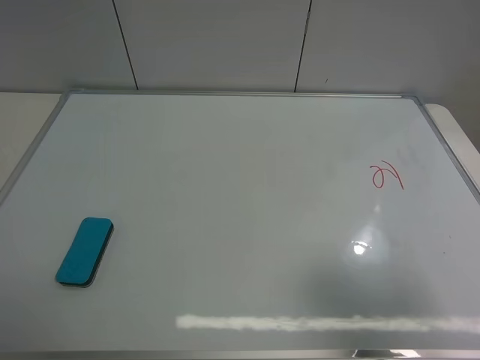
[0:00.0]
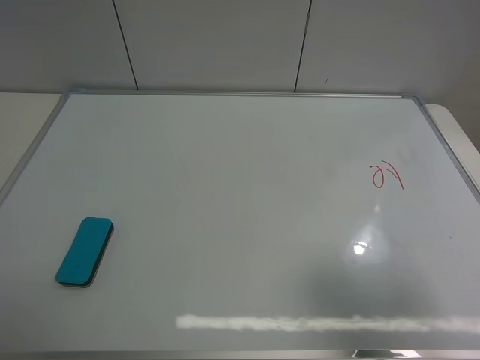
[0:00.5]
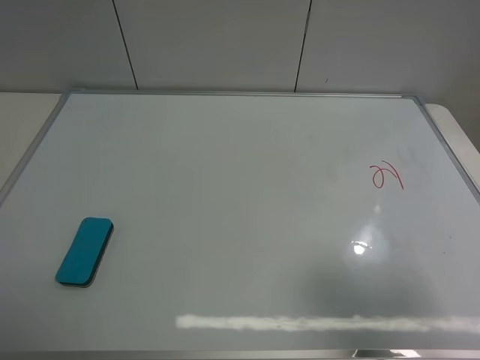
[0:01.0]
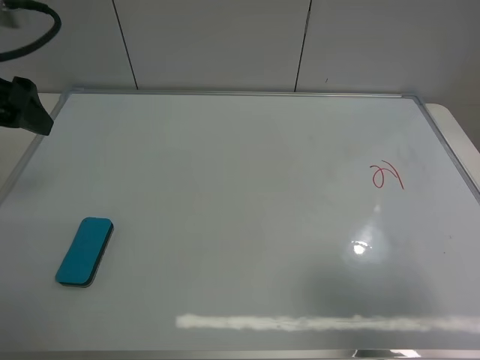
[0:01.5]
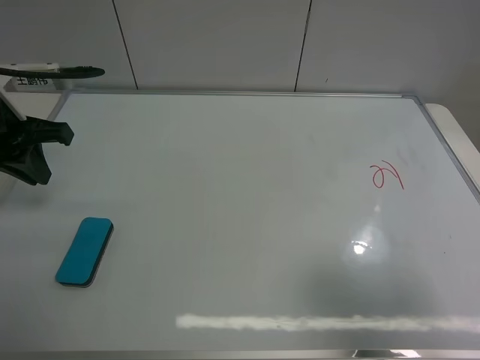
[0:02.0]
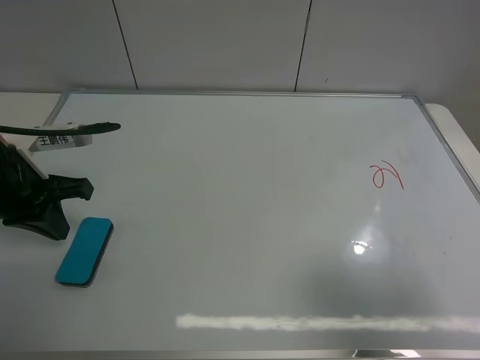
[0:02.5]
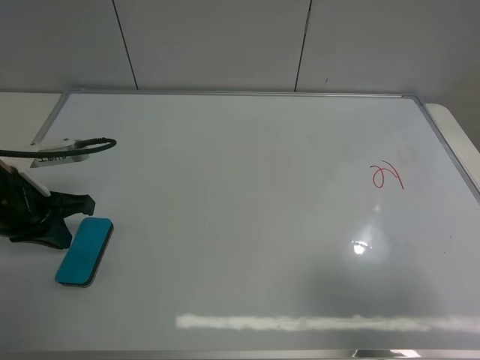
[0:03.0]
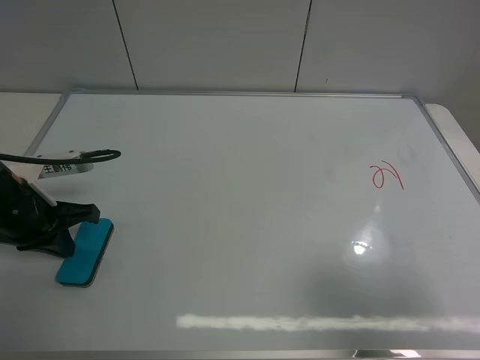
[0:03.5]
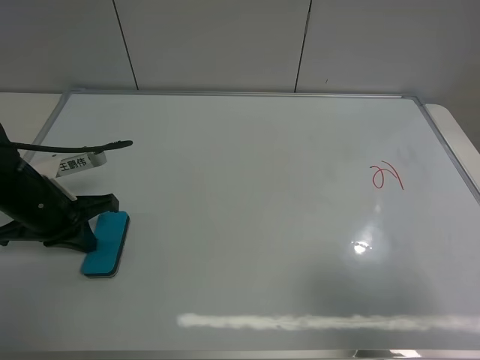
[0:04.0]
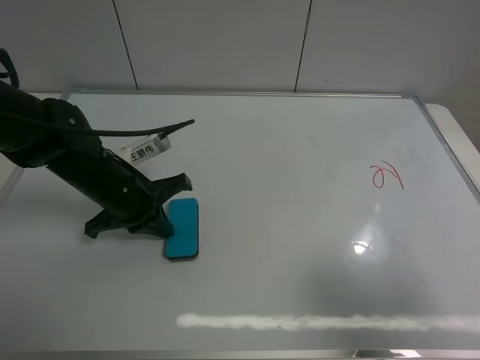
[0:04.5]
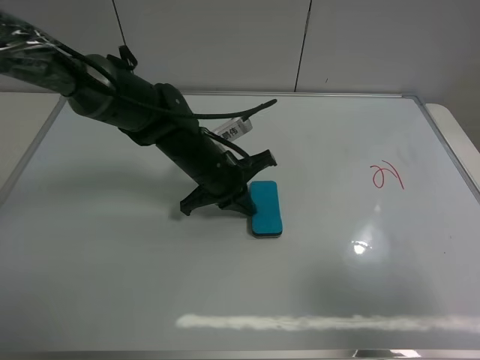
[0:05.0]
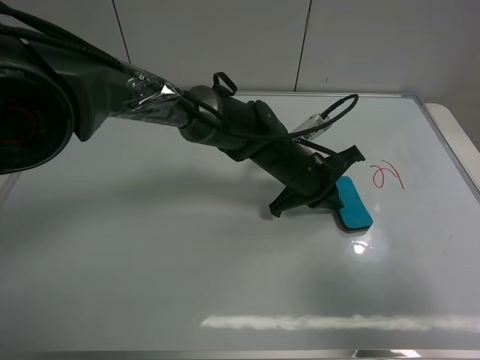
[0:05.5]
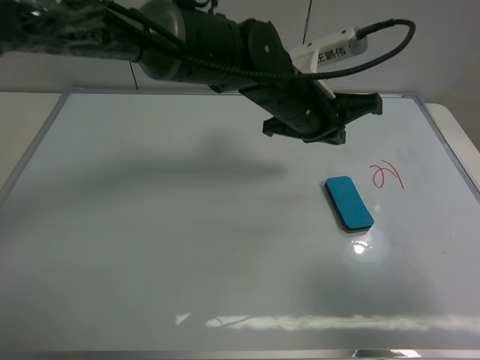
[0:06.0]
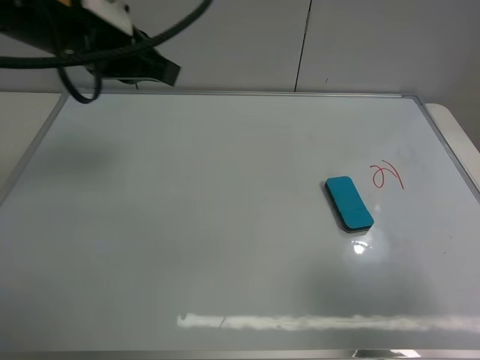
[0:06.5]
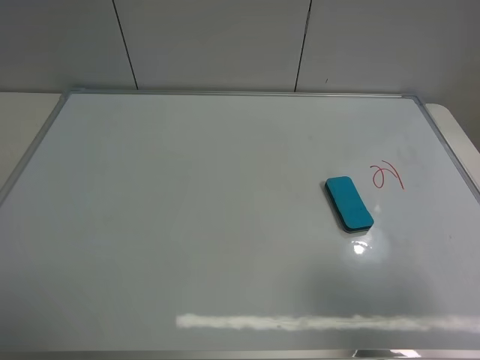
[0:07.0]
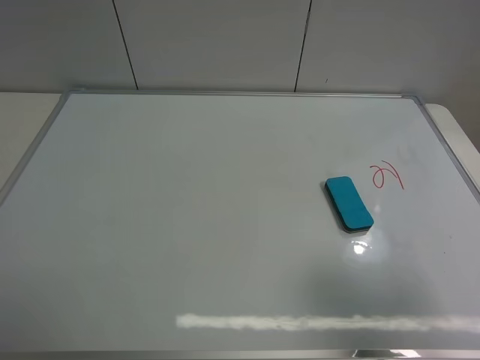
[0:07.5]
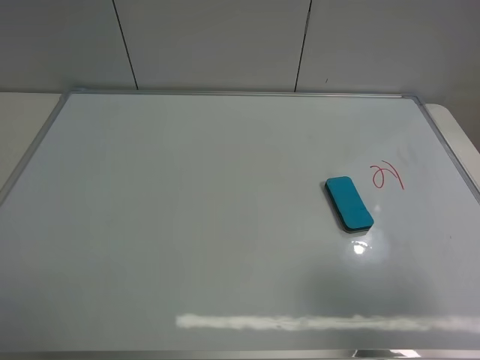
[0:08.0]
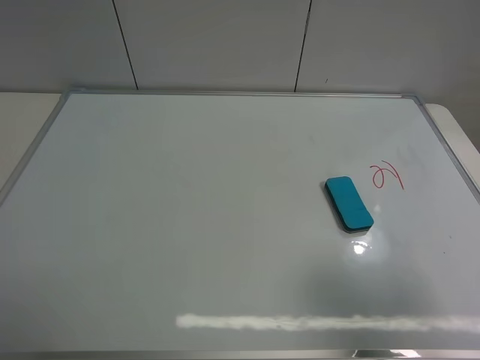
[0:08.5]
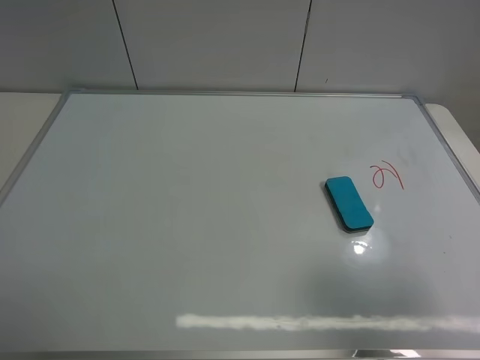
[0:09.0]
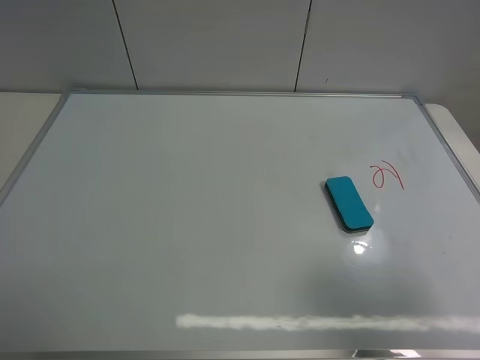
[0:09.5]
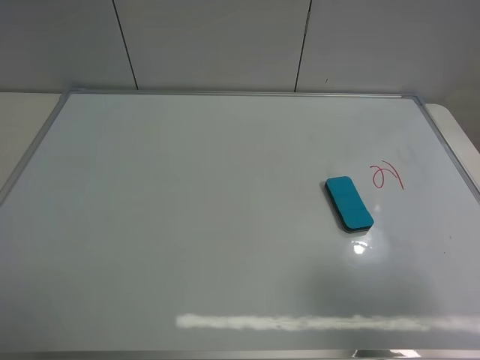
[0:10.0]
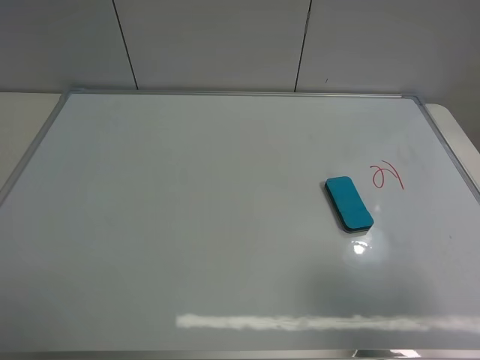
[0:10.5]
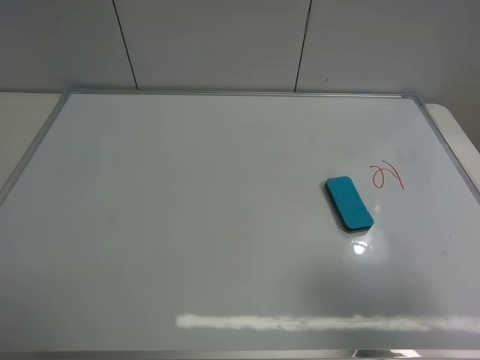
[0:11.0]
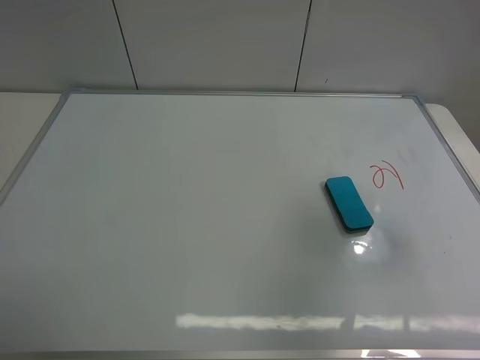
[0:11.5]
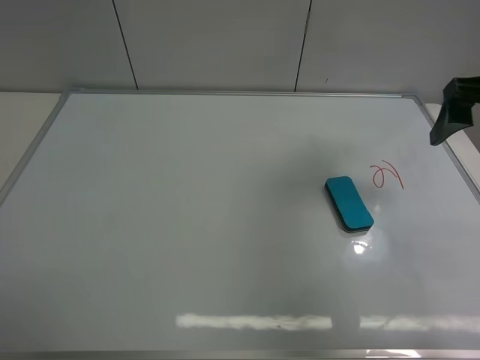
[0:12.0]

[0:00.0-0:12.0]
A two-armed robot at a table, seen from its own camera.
Task of the whole recording: use the left gripper to place the eraser in the right, use the right gripper to pick up the eraser, wipe the notes on the whiteboard clean, and then put it down.
Step, 0:00.0 to 0:05.5: Move the board eraser to the right of the whiteboard with left gripper.
0:00.0 to 0:02.0: The left gripper moves forward, approximately 25 cm, and closes.
0:02.0 to 0:04.0: The left gripper moves downward, approximately 10 cm.
0:04.0 to 0:06.0: The left gripper moves to the right, approximately 30 cm.
0:06.0 to 0:08.0: The left gripper heads to the left and backward, covering approximately 50 cm, and opens up.
0:10.0 to 0:12.0: The right gripper heads forward, covering some 25 cm.

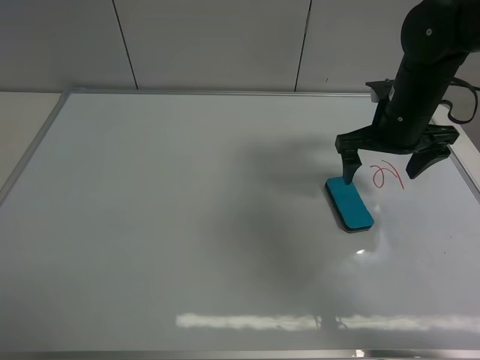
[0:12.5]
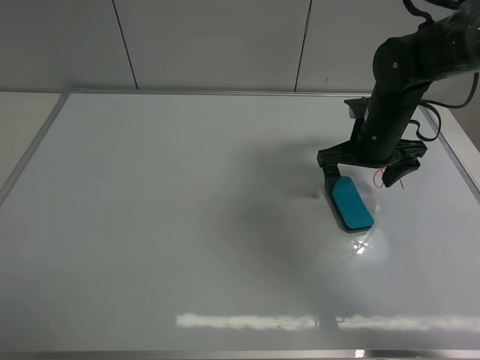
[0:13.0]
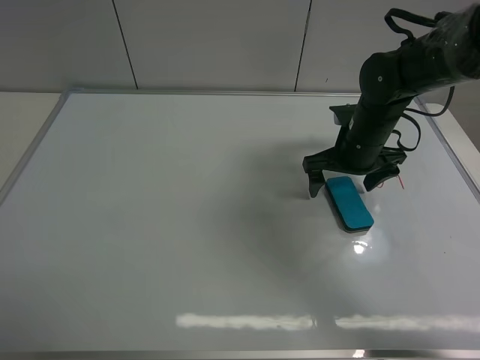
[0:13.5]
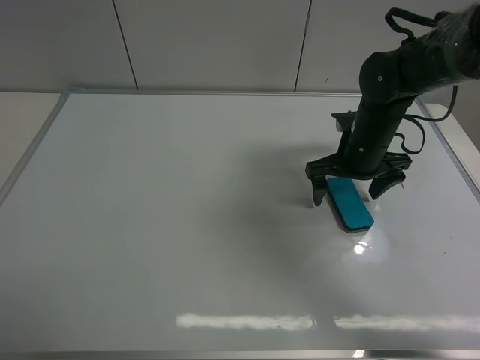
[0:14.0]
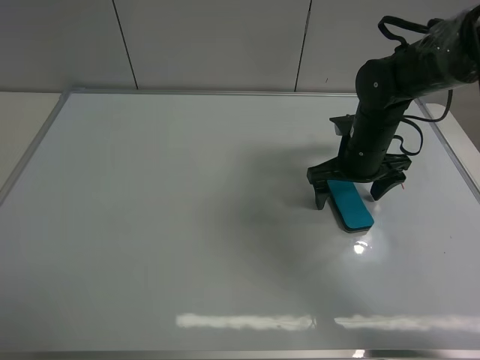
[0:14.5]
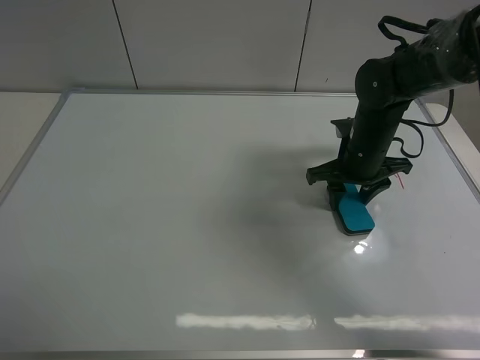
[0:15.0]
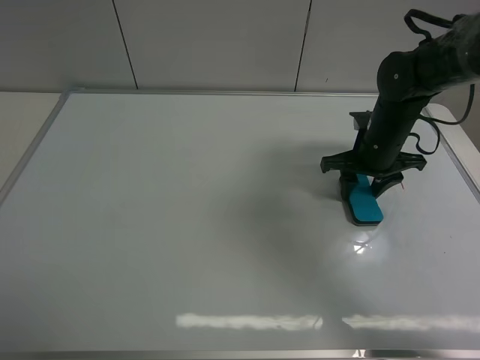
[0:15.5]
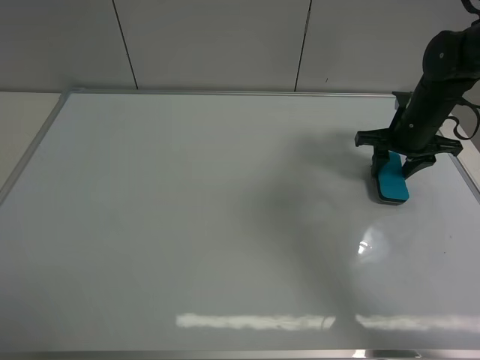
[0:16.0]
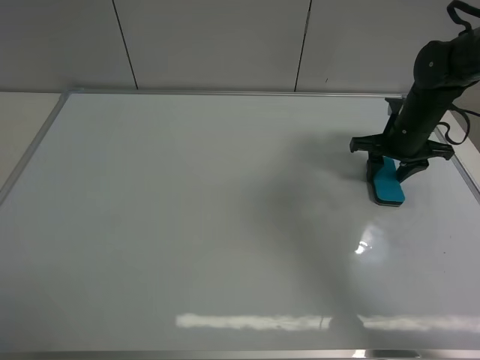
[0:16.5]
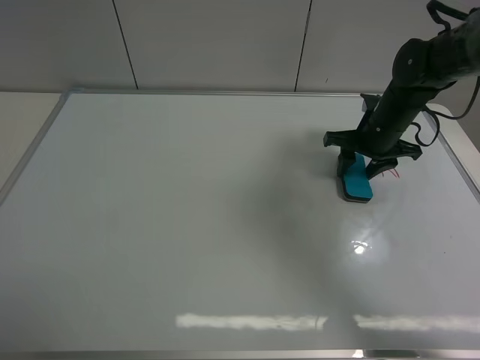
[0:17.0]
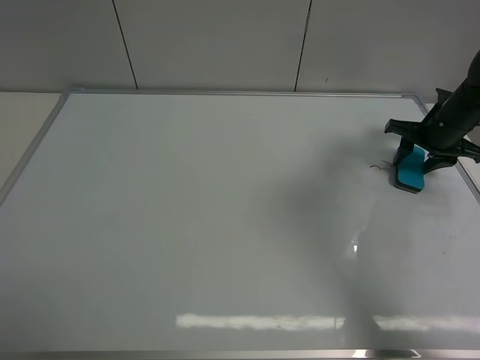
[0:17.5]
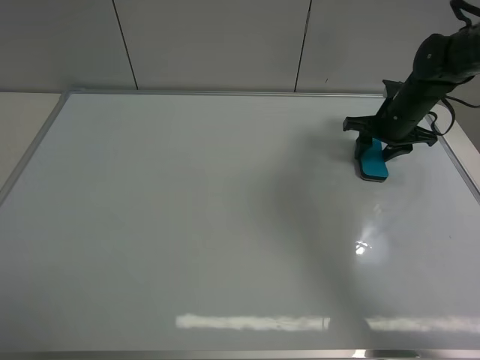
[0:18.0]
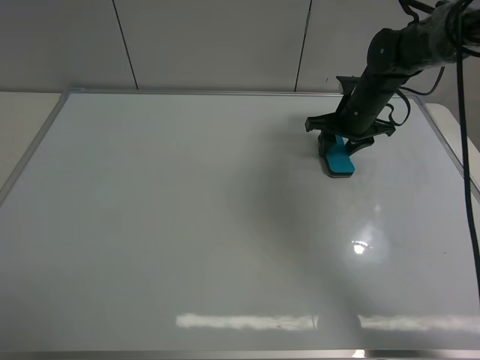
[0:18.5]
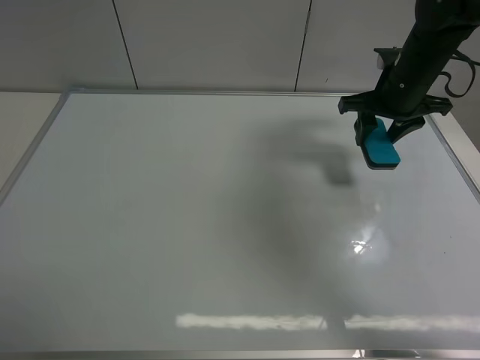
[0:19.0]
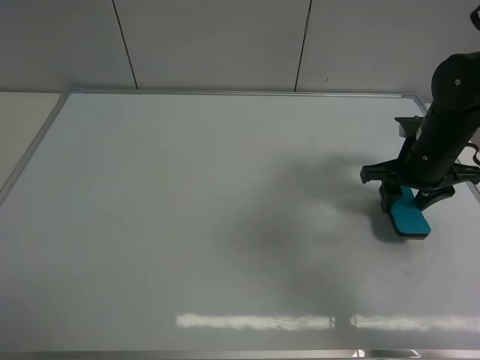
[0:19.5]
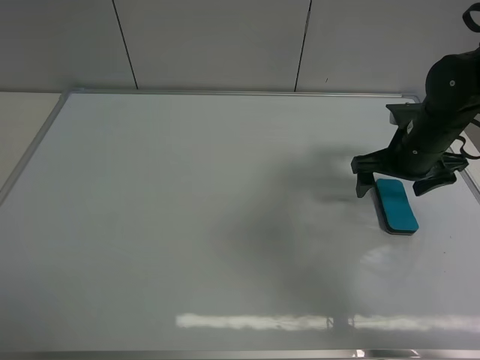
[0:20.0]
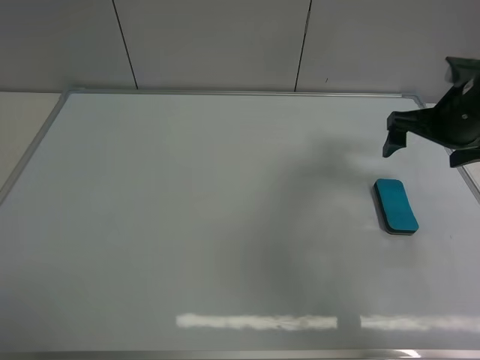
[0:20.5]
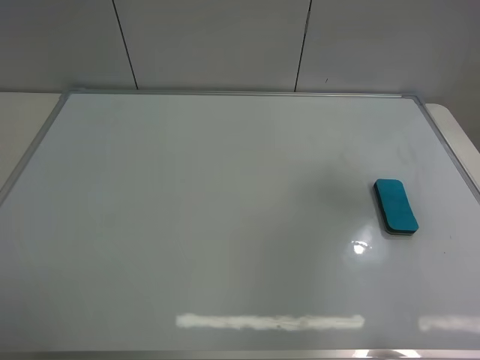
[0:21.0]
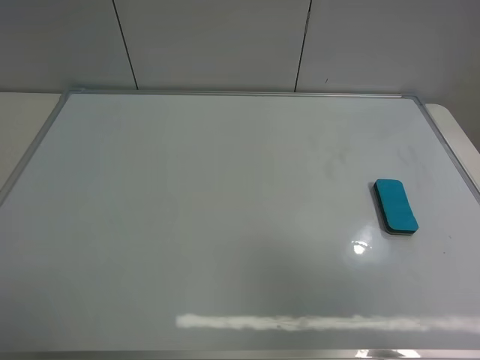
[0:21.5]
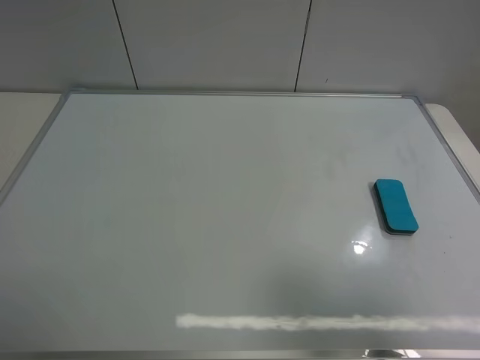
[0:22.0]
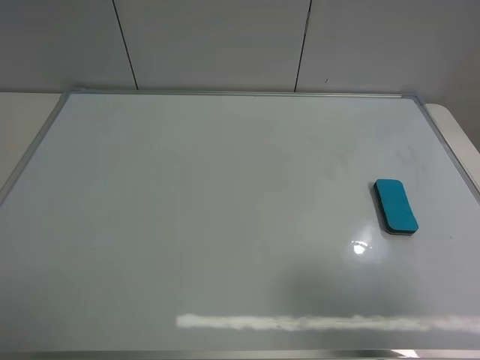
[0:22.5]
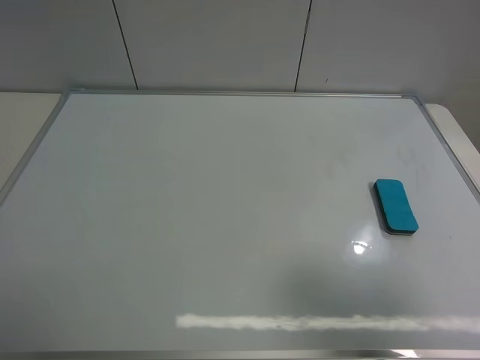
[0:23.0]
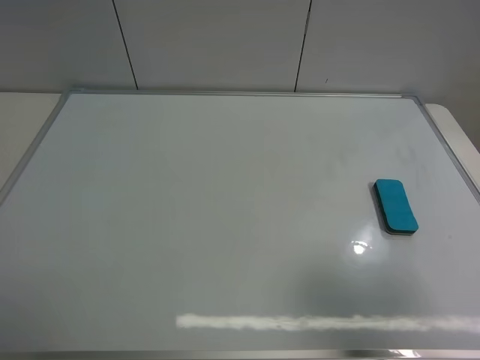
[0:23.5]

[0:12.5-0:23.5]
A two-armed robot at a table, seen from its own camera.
Task of the whole recording: use the left gripper to place the eraser in the right, use the right gripper to pick up the eraser, wipe the notes on the whiteboard clean, and then put it down.
Step, 0:12.5 to 0:15.5: Pick up the board eraser with right gripper.
Step, 0:16.0 to 0:18.5: Wipe off the writing on the board with right gripper.
Step, 0:19.0 to 0:19.5: Move the board eraser to the right of the whiteboard with right gripper.
0:12.5 to 0:14.5: The right gripper travels downward by some 5 cm.
0:14.5 to 0:16.0: The right gripper shifts approximately 10 cm to the right, and closes.
0:16.0 to 0:18.0: The right gripper swings left and right, about 10 cm each way, with 2 reversals.
0:18.0 to 0:20.0: The right gripper is displaced backward by some 10 cm, and opens up.
0:20.0 to 0:21.5: The right gripper goes roughly 40 cm backward and upward.
0:21.5 to 0:23.5: The right gripper shifts approximately 10 cm downward.

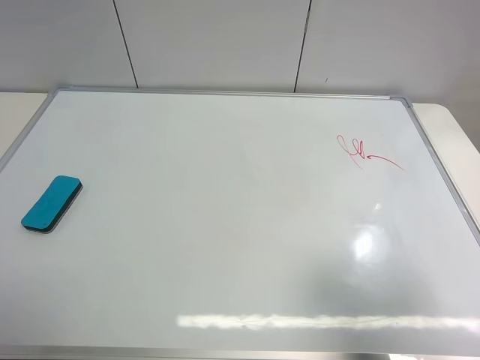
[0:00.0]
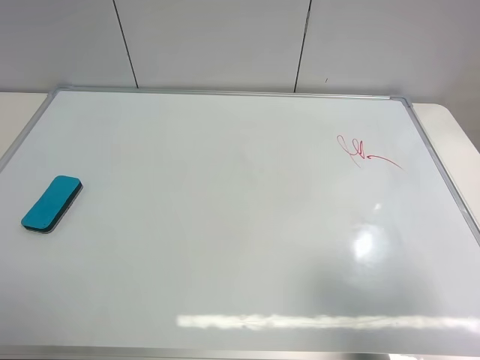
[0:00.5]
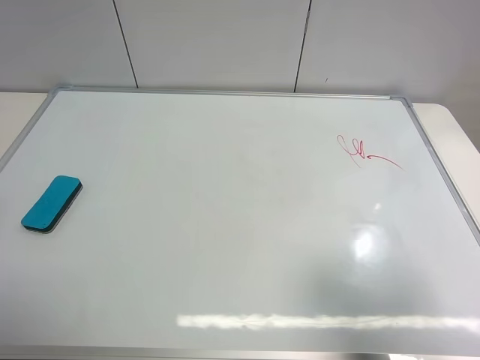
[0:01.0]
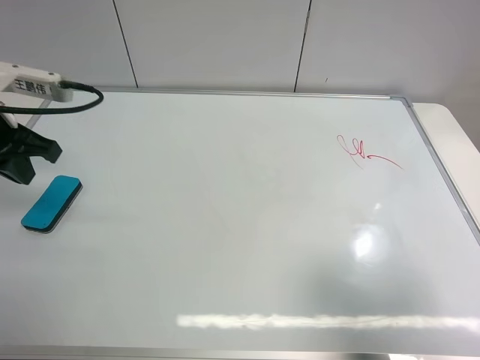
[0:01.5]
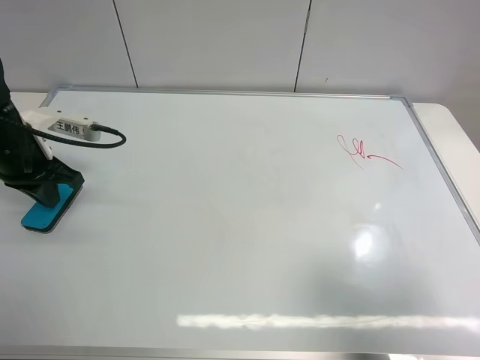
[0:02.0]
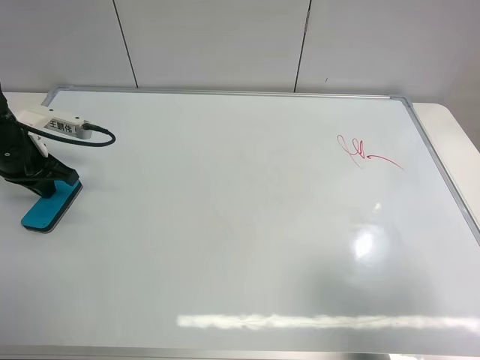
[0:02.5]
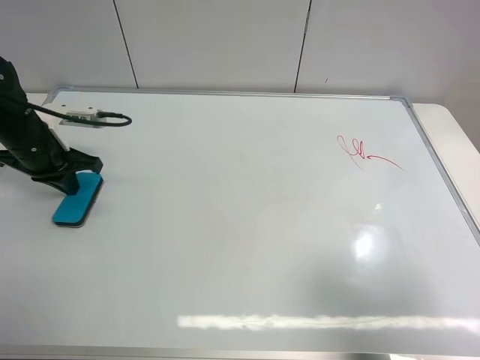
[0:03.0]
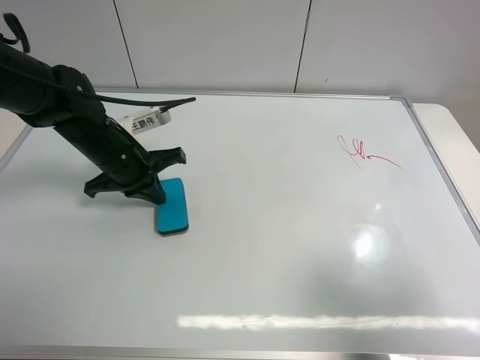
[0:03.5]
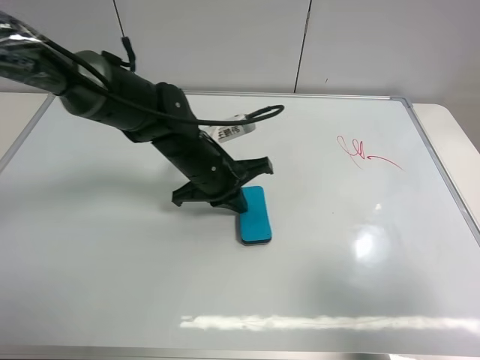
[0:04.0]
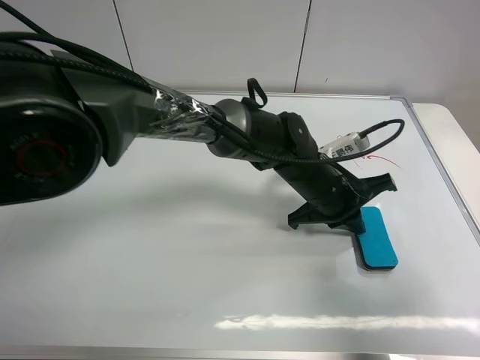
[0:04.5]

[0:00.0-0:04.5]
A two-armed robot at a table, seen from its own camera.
Task of the whole recording: use the left gripper to place the eraser in the right, use the right gripper to pick up the eraser, wipe the notes on the whiteboard clean, and then put it down.
0:00.0 to 0:02.0: The left gripper travels forward and downward by approximately 30 cm, and closes up.
0:02.0 to 0:04.5: The left gripper travels to the right by roughly 40 cm.
